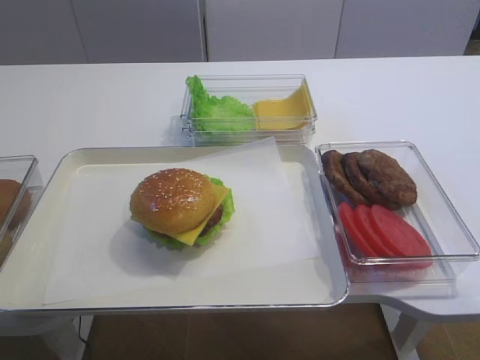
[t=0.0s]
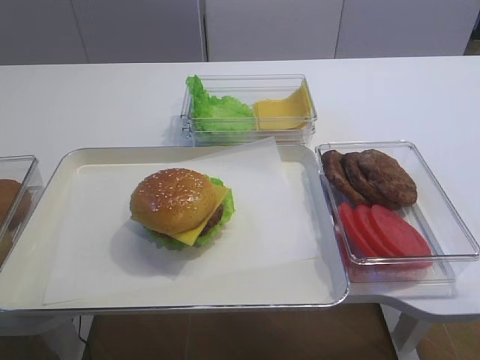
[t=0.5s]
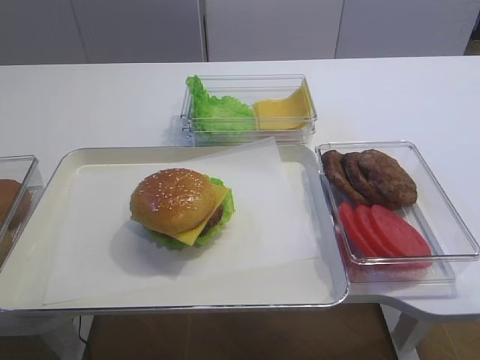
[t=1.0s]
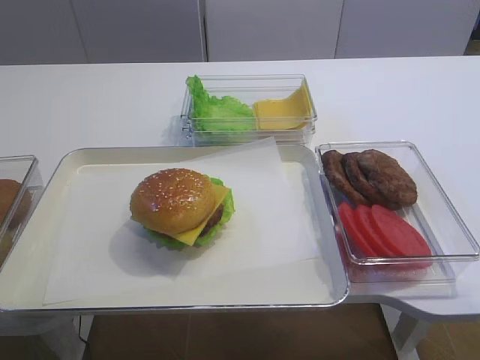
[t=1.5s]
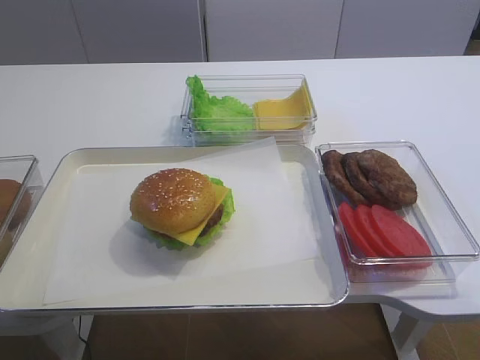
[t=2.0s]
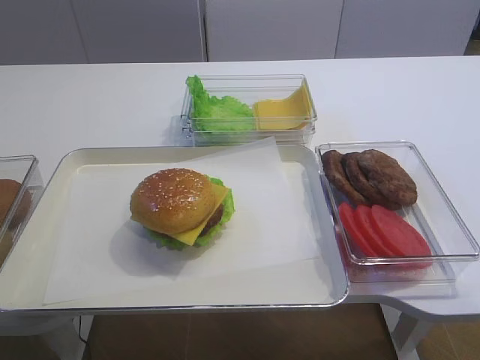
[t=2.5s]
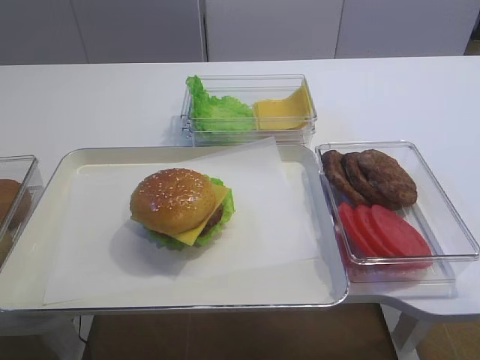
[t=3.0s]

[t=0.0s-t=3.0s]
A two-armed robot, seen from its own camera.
t=0.0s to t=3.0s: The two grippers keep their place.

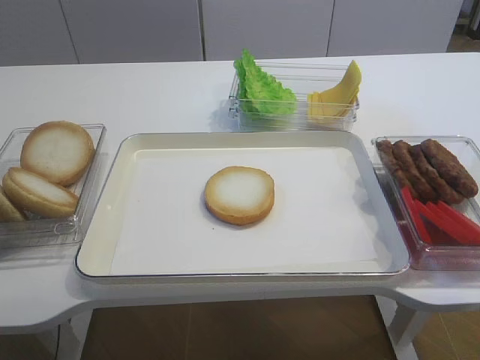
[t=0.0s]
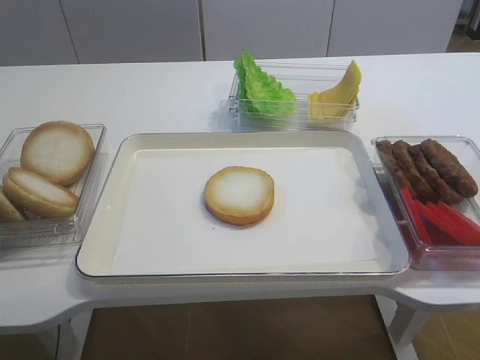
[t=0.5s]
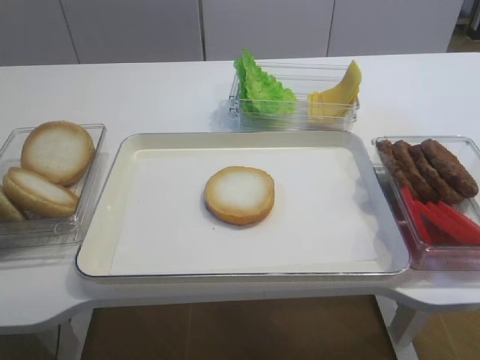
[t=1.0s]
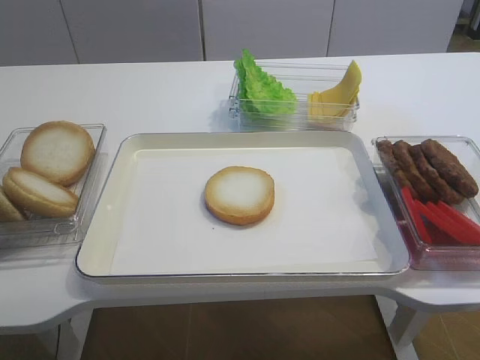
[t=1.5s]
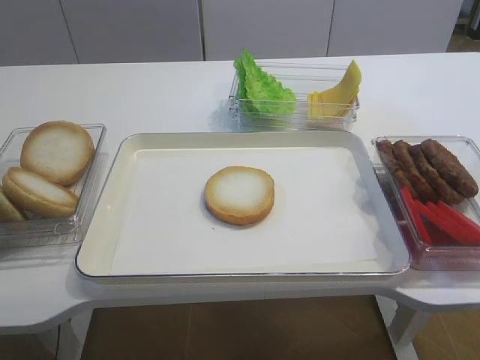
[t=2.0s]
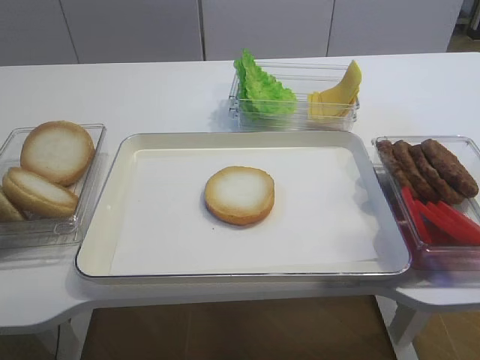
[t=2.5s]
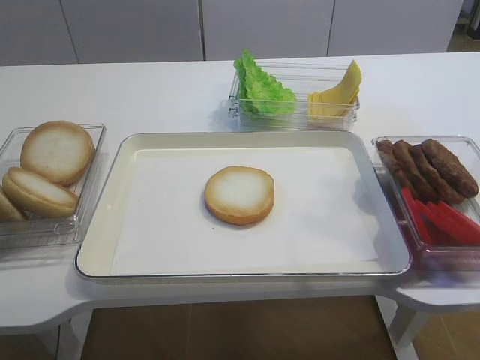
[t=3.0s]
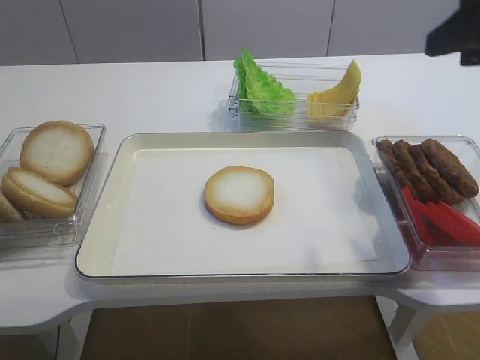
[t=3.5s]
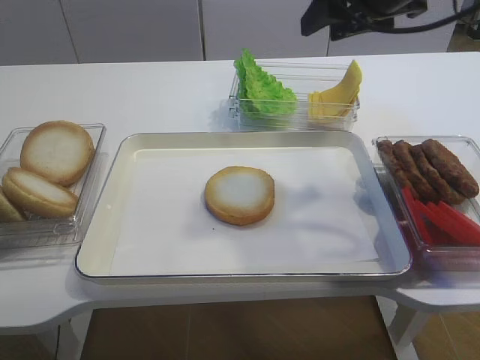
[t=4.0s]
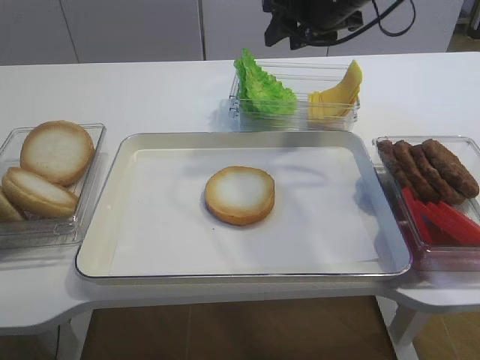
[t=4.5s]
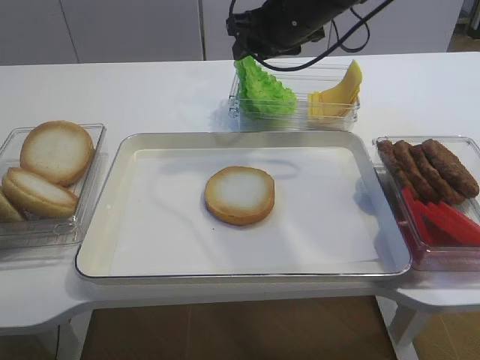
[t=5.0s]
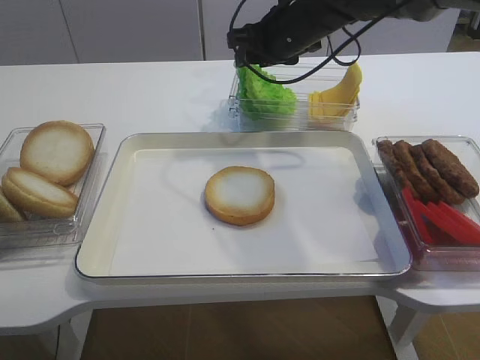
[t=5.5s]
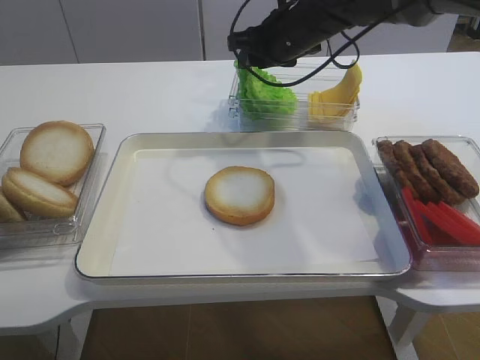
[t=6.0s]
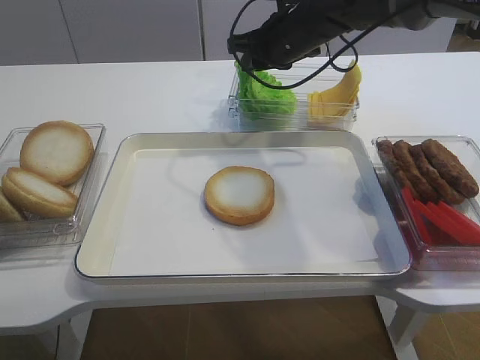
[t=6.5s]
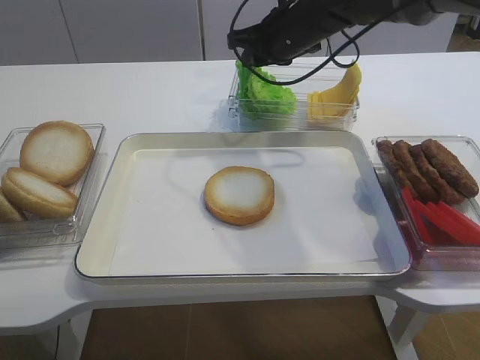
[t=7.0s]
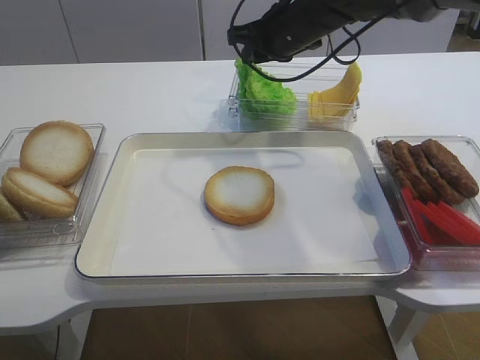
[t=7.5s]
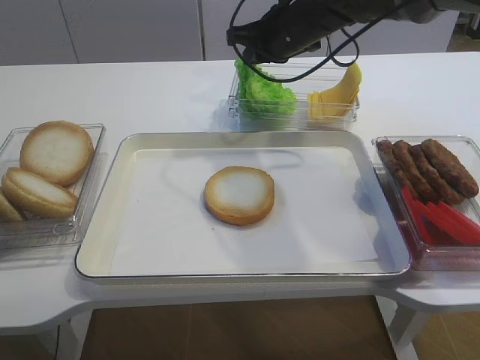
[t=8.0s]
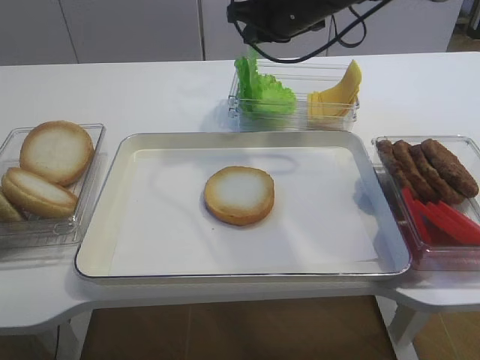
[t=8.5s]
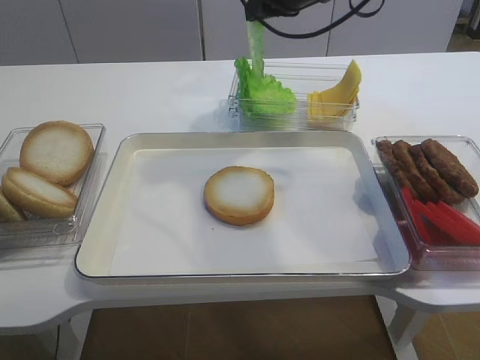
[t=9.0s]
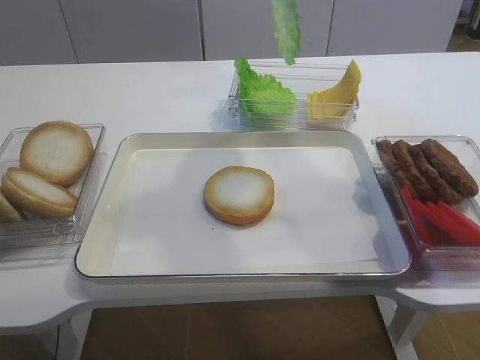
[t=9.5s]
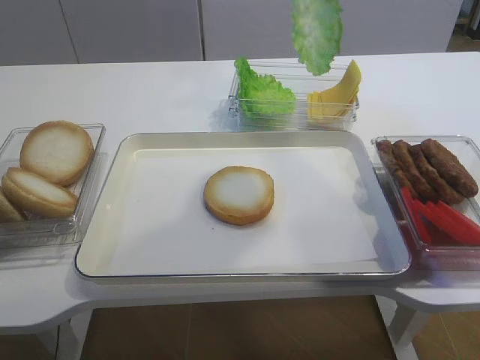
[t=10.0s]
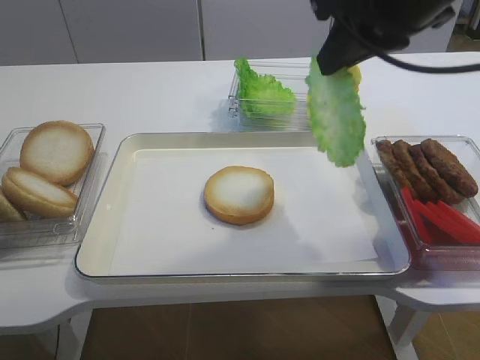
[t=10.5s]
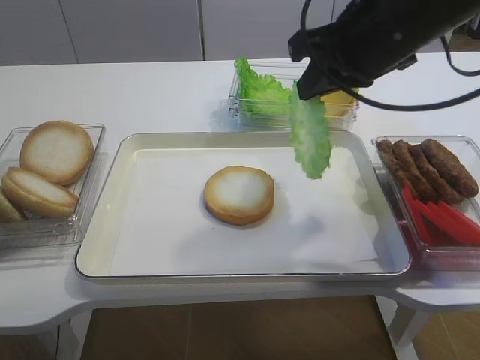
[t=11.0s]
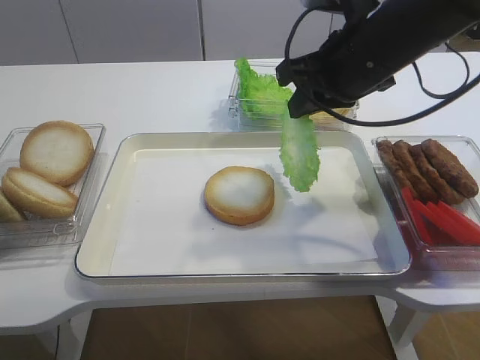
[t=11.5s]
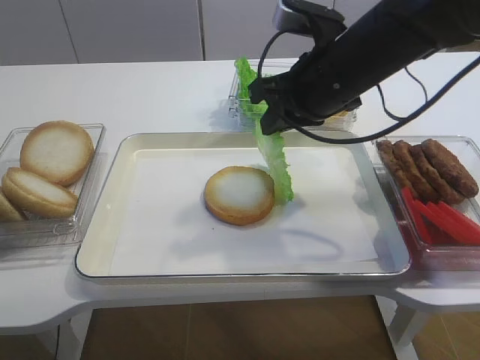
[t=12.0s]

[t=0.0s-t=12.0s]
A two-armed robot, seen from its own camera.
Step, t=0.0s to t=9.0s: Pick up the lettuce leaf with the right gripper.
t=2.0s to t=4.0s: The right gripper shifts approximately 35 cm forward.
t=4.0s to t=6.0s: The right gripper moves forward, downward and to the left, roughly 15 cm.
t=6.0s to t=8.0s: The right gripper closes its fingers.
t=8.0s to t=10.0s: The right gripper shifts some 20 cm upward and backward.
t=10.0s to t=12.0s: The right gripper shifts approximately 15 cm downward.

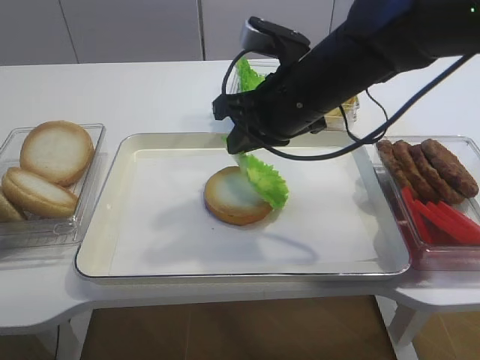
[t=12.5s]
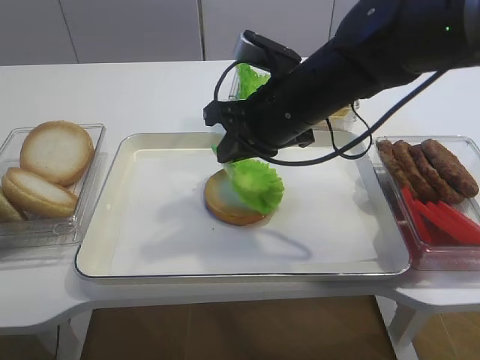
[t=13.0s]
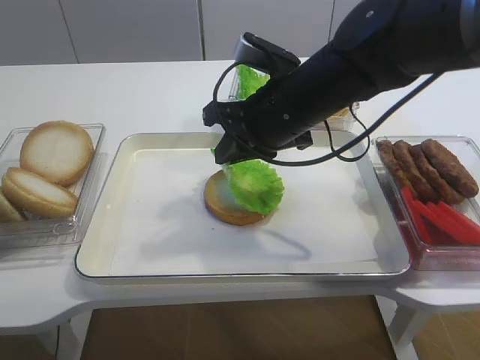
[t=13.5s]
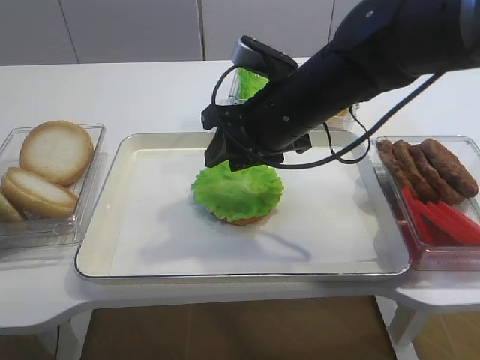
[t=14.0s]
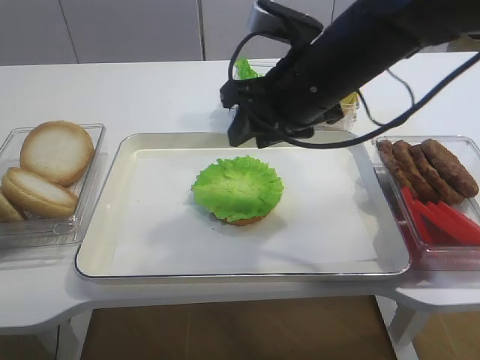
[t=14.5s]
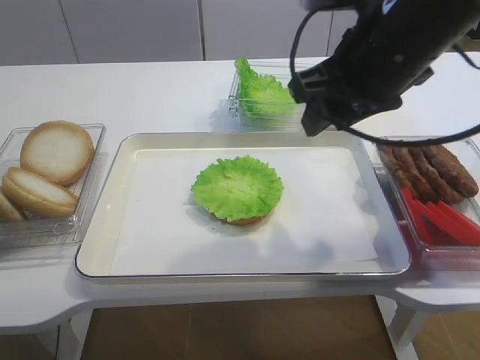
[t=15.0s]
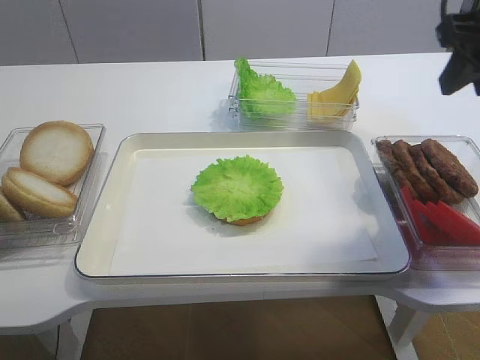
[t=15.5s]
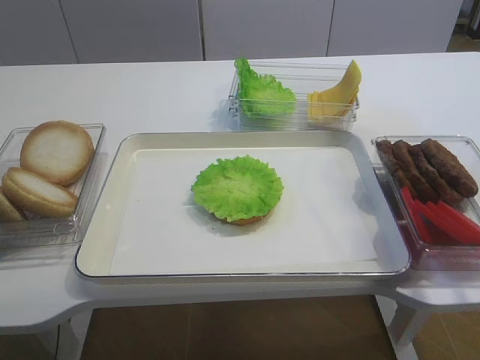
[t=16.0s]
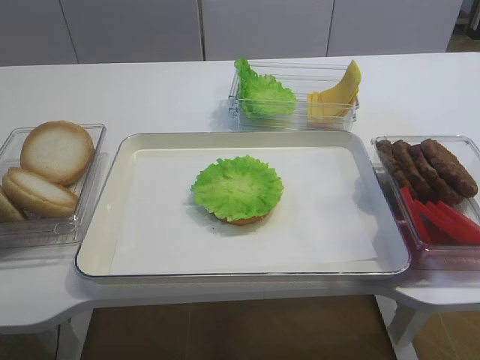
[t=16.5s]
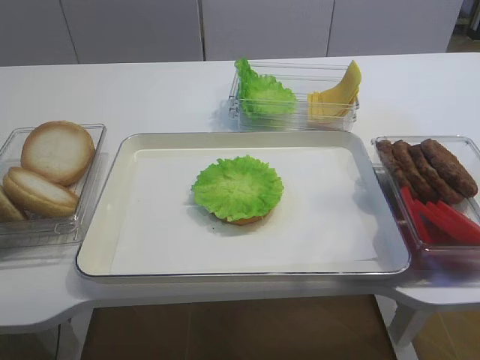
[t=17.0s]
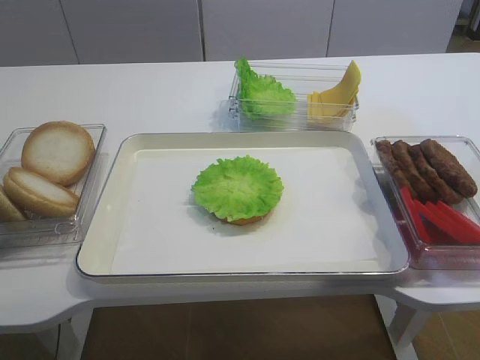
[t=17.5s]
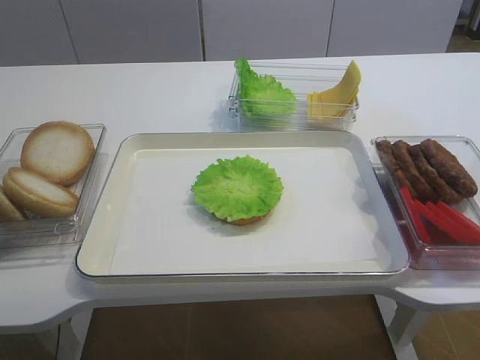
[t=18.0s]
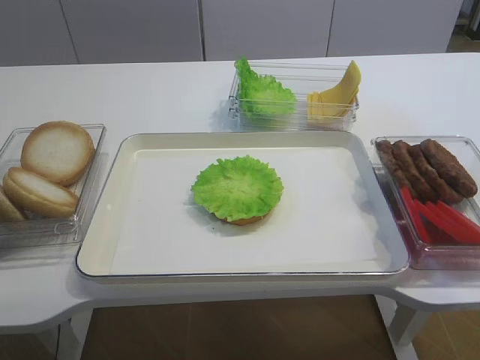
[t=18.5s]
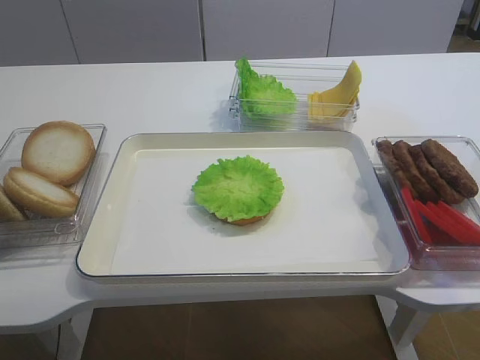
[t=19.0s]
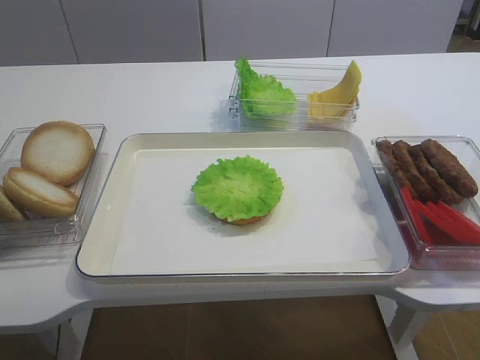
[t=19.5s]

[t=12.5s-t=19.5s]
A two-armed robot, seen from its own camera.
t=12.5s to t=14.5s: The right gripper opens up.
t=14.5s to t=16.0s: The right gripper shifts about 20 cm to the right and backward.
t=16.0s to t=17.5s: The right gripper is displaced backward by roughly 25 cm.

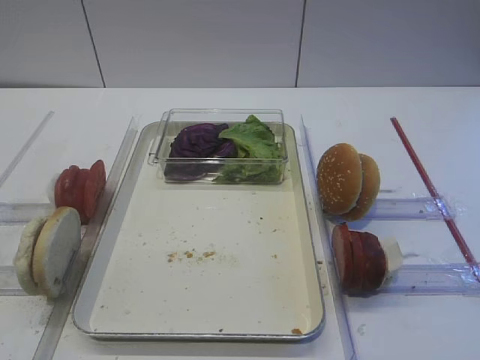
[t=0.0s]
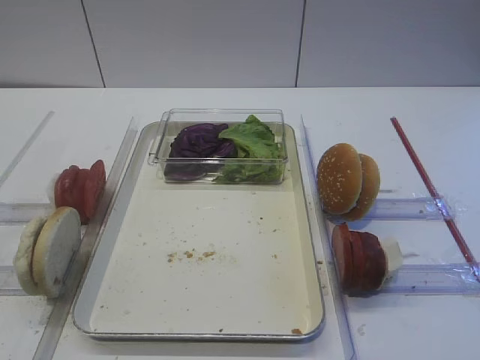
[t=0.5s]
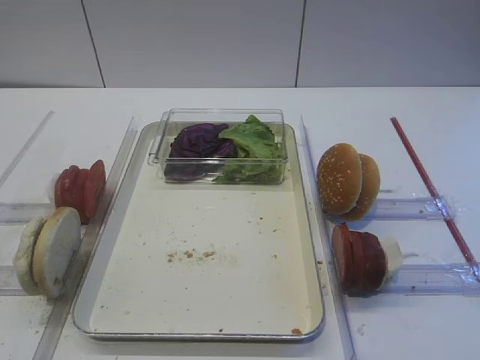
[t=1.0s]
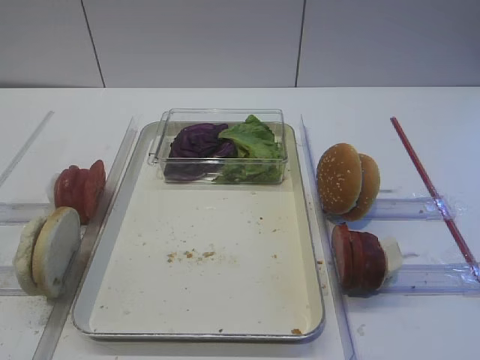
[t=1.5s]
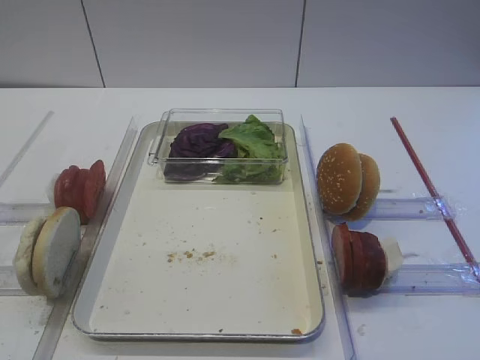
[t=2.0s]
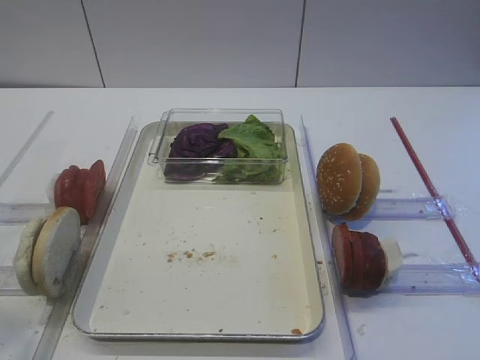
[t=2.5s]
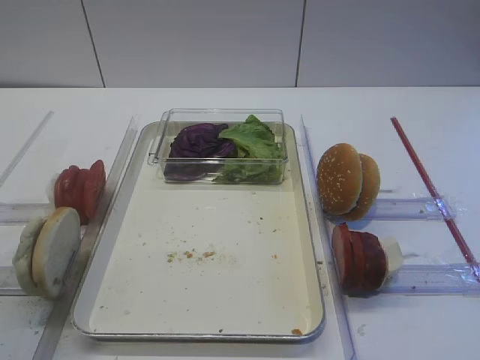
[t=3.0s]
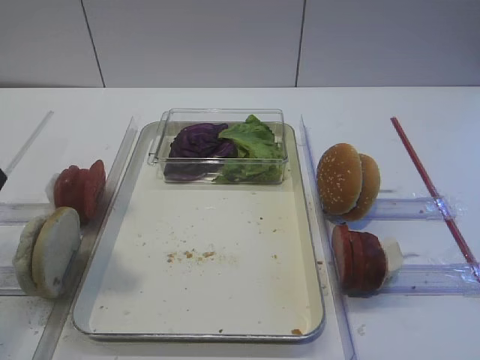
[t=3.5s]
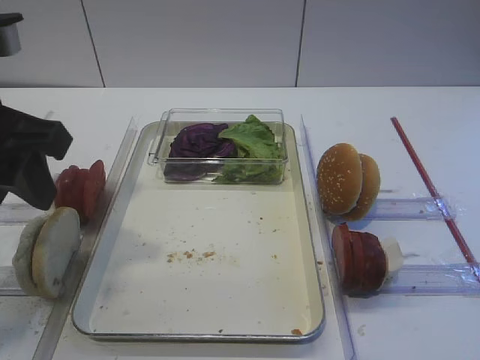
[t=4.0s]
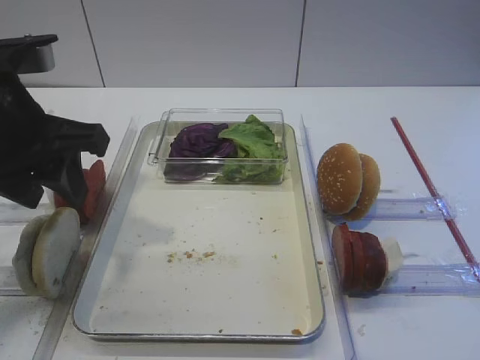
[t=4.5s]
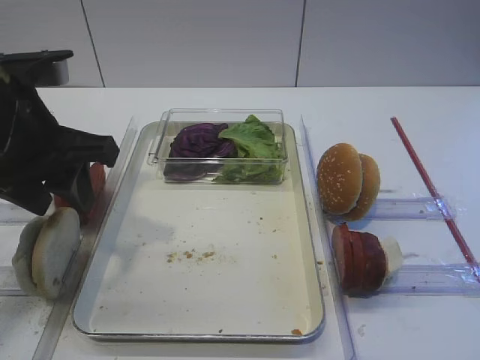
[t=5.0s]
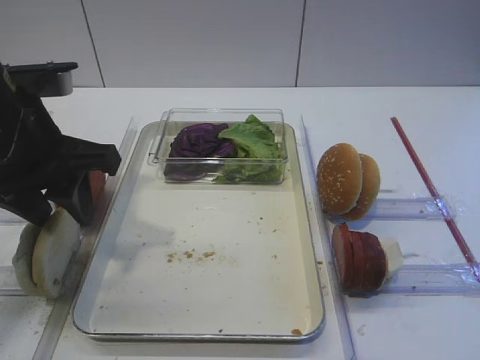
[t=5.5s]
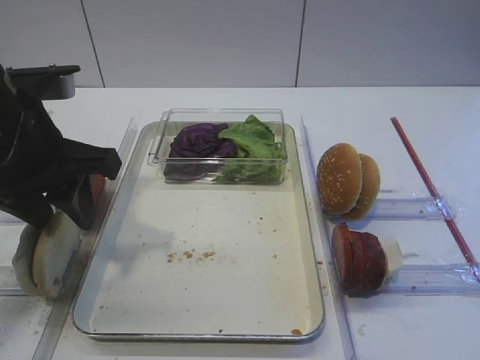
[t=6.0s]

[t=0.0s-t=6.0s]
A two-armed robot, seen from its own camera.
t=2.0s to t=4.0s: The left gripper goes roughly 20 cm forward.
t=4.0s to t=6.0s: The left gripper changes place by some 5 cm.
